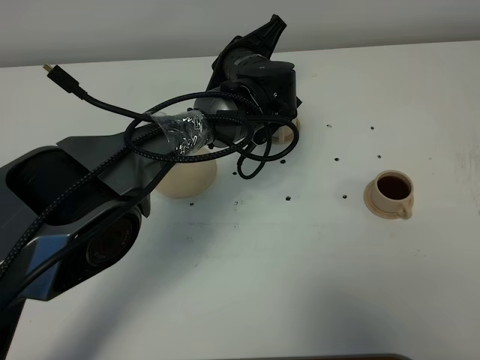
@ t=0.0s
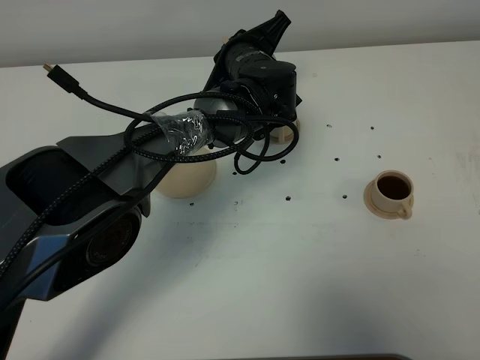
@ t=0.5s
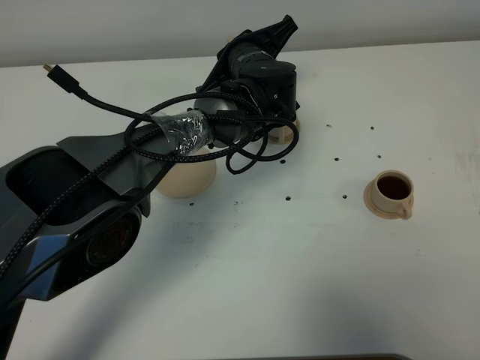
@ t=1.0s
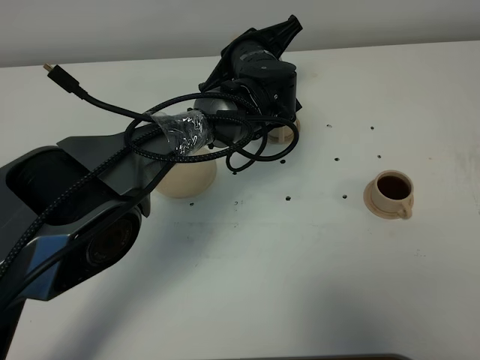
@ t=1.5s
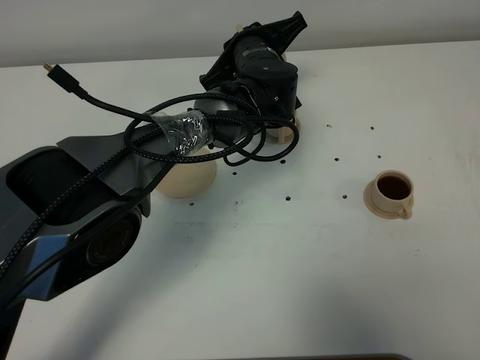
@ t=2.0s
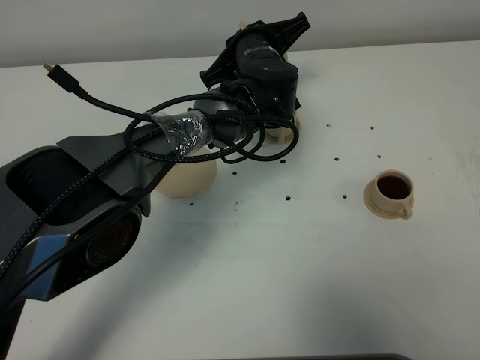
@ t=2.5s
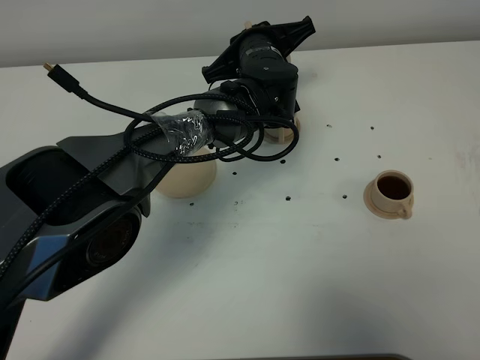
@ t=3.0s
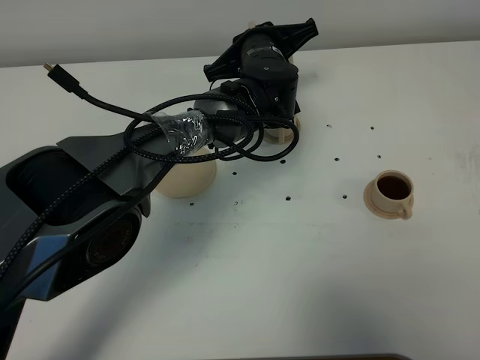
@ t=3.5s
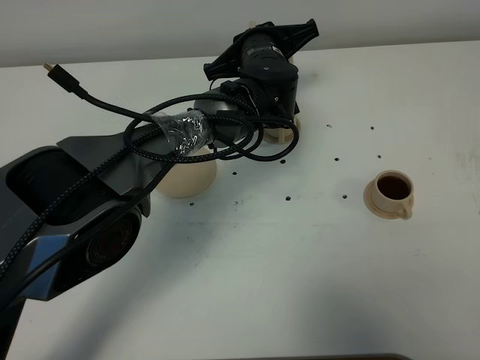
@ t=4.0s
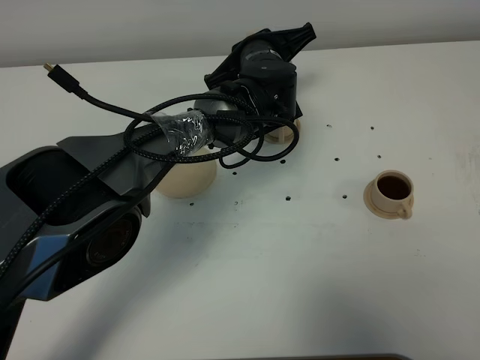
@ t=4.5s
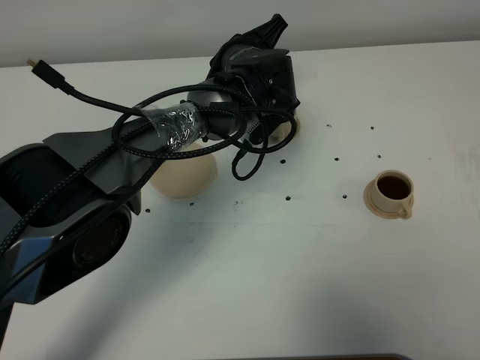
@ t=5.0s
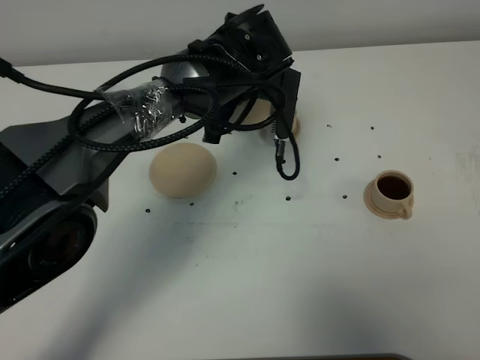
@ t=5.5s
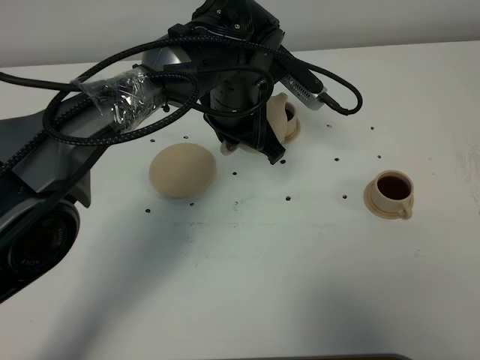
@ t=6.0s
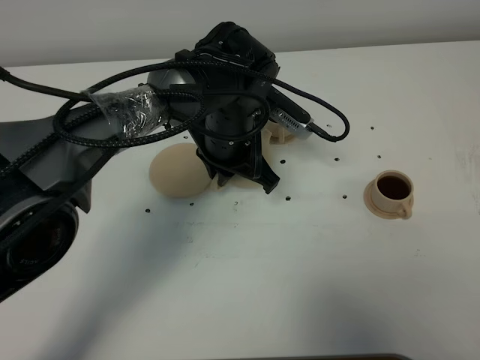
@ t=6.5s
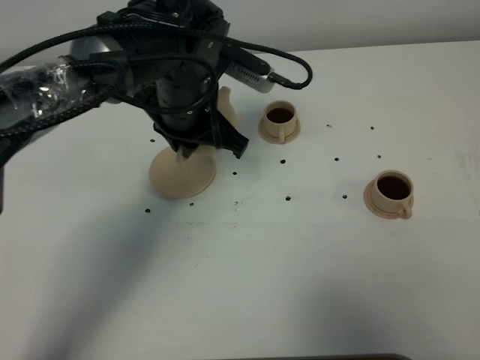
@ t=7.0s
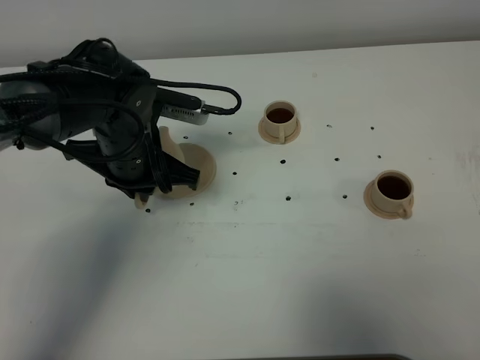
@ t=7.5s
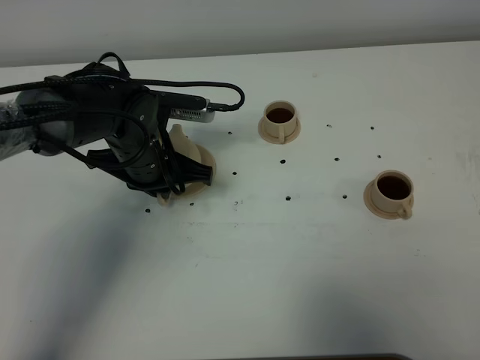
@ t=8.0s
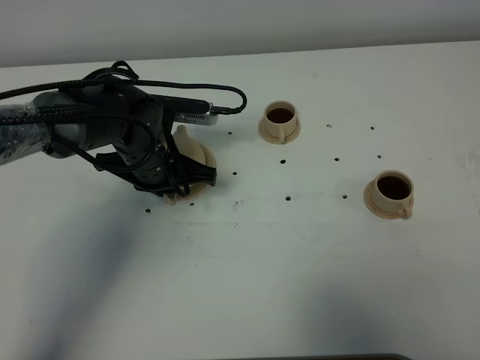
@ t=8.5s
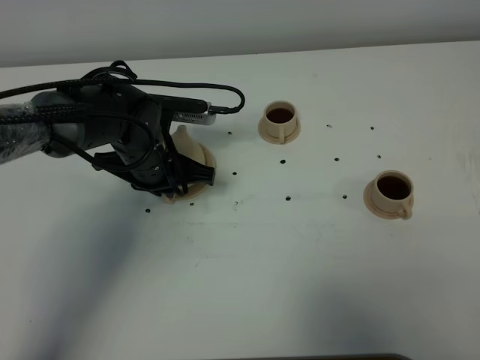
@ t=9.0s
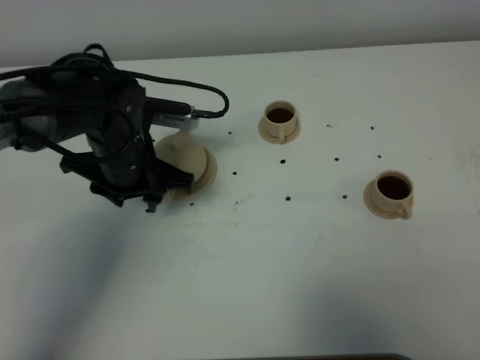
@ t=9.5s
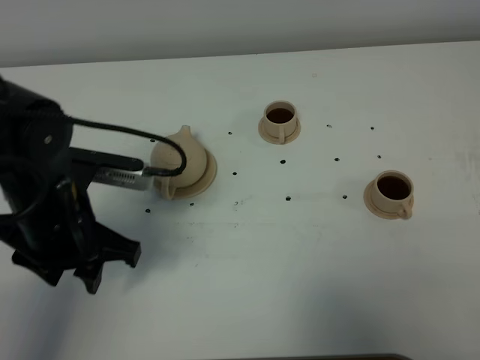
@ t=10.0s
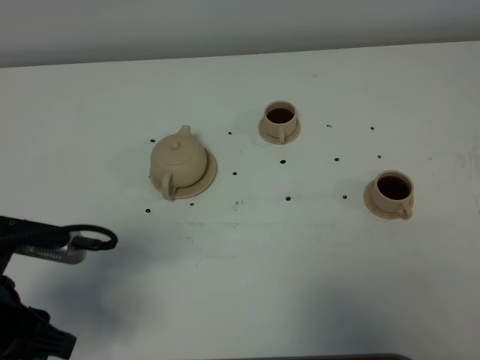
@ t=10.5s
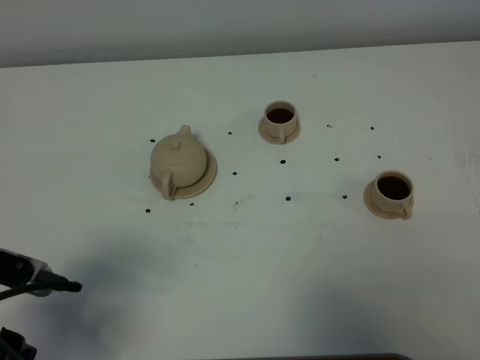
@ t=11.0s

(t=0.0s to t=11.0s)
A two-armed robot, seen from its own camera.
Task of the whole recording: grasp the brown teapot and pour the tea into the two brown teacups one by one, put the brown teapot back in its original place.
Step, t=0.0s - t=4.5s: Pour tea into the teacup with the left gripper.
t=0.0s - t=2.0s: The grippers stay close to where they were, moving slightly.
t=2.0s - t=3.5s: The grippers stay close to where they were, moving slightly.
t=3.5s - t=5.5s: The left gripper shifts by about 5 cm.
t=5.5s - t=7.5s: The left gripper heads to the left and backward, covering roughly 15 cm.
t=7.5s - t=9.0s: The left gripper changes place by roughly 5 cm.
t=9.0s - t=11.0s: The left gripper heads backward and to the left, covering about 30 cm, and opens its fingers.

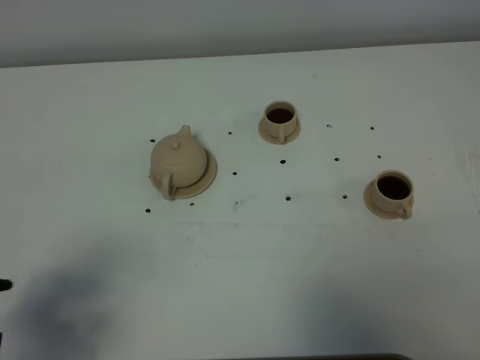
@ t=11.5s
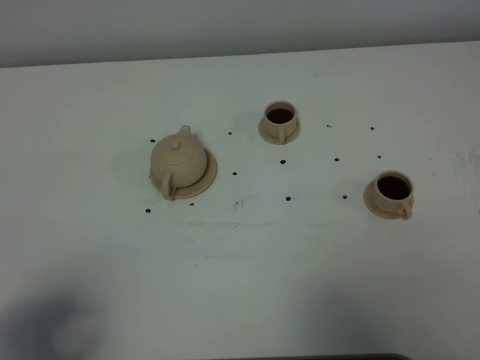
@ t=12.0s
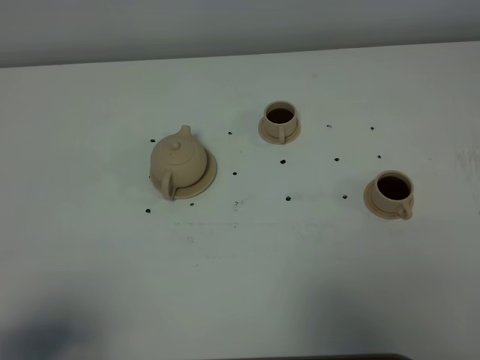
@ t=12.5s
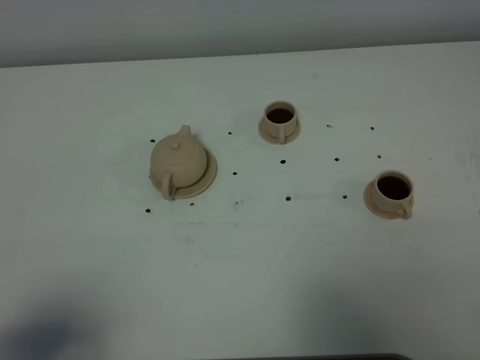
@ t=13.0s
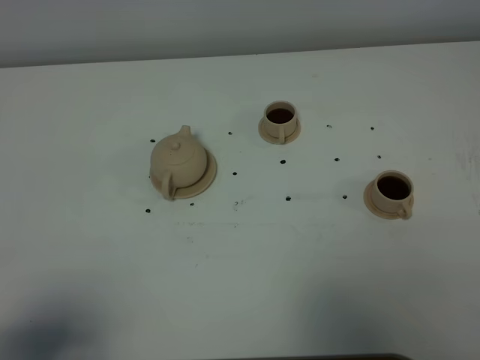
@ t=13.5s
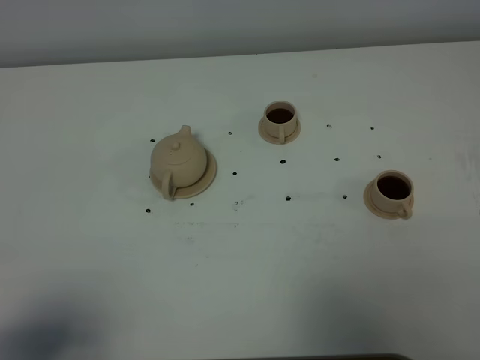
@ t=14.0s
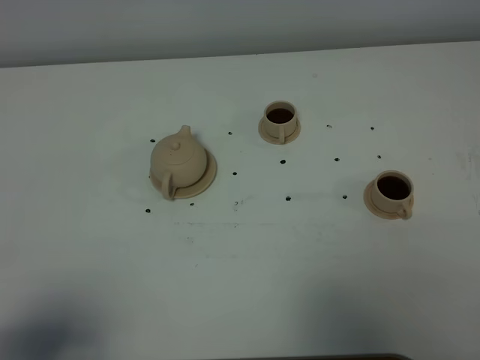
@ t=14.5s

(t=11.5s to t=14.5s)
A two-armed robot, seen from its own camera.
Task of the whole recording: grasp the brown teapot and pour the tea into the two brown teacups one by one, put the brown teapot back in its original place.
t=11.5s - t=13.0s: The left gripper goes roughly 5 cm backward.
t=13.0s - t=14.5s: Neither gripper changes place.

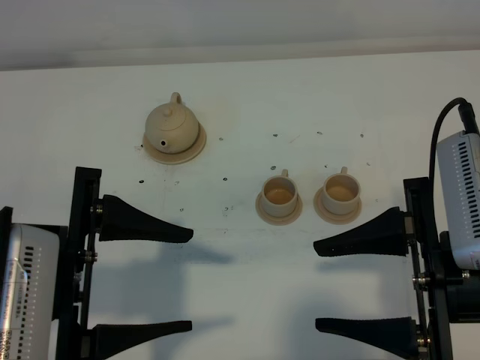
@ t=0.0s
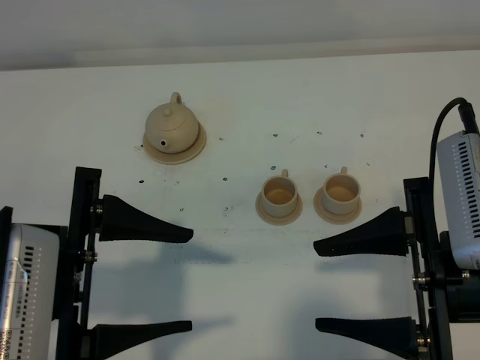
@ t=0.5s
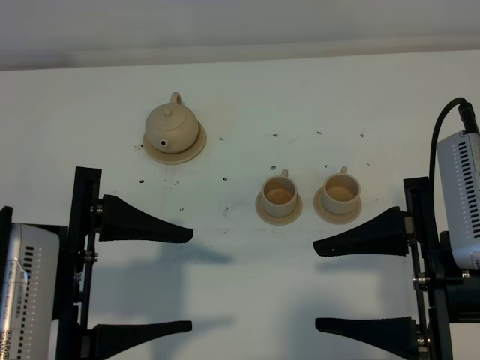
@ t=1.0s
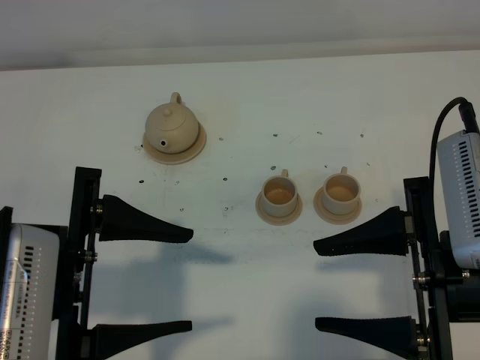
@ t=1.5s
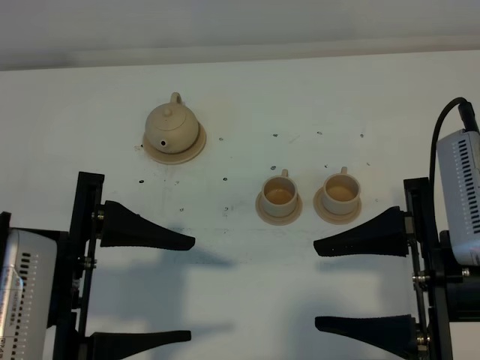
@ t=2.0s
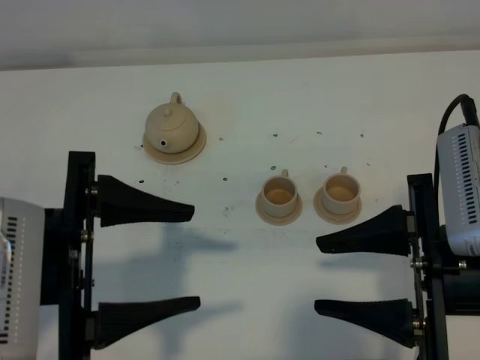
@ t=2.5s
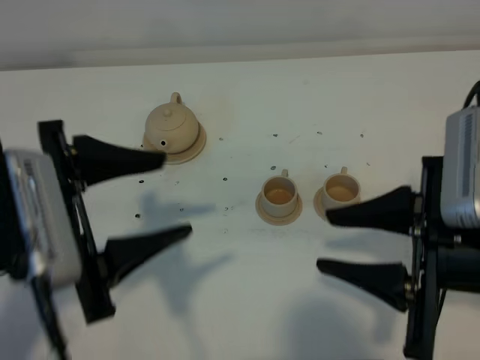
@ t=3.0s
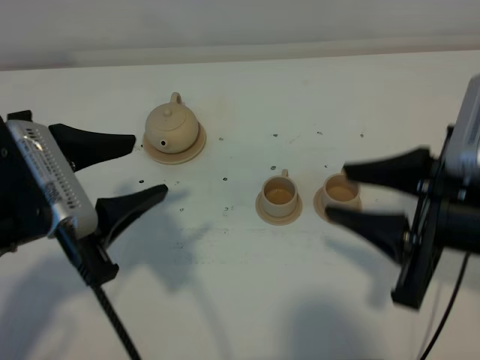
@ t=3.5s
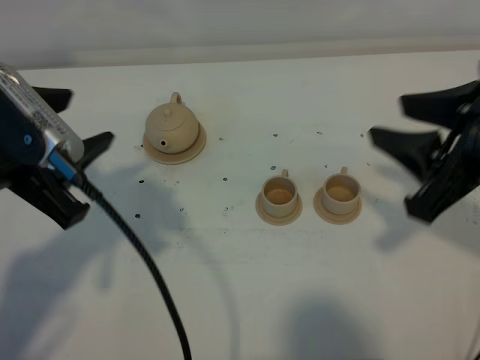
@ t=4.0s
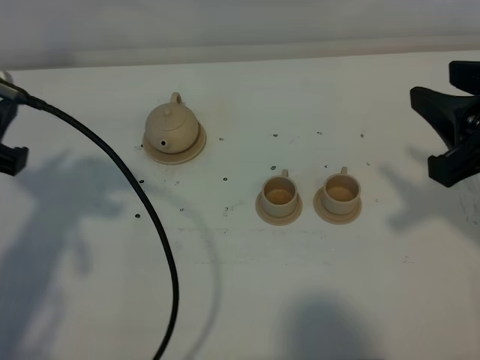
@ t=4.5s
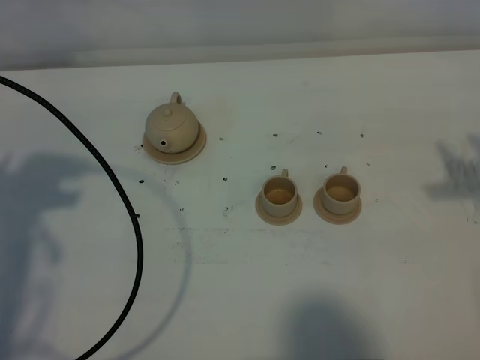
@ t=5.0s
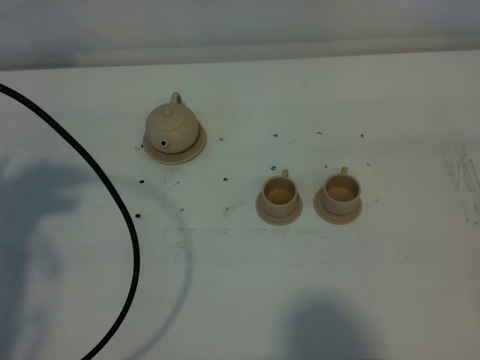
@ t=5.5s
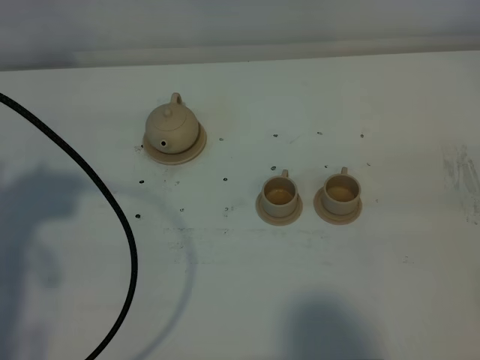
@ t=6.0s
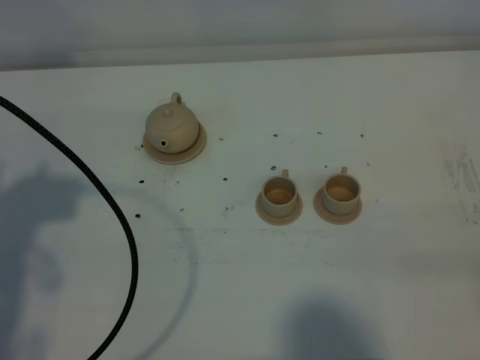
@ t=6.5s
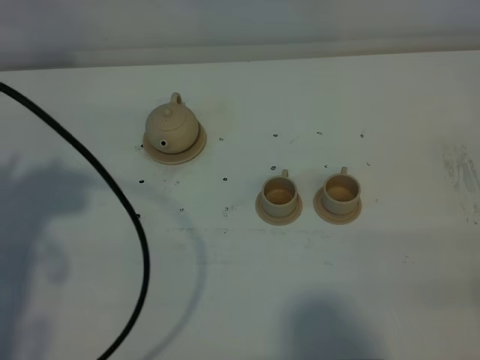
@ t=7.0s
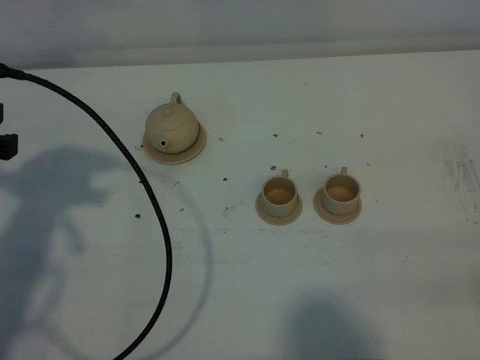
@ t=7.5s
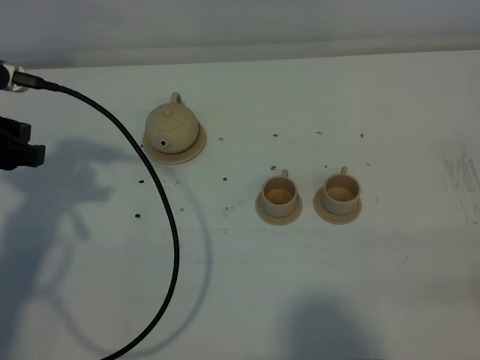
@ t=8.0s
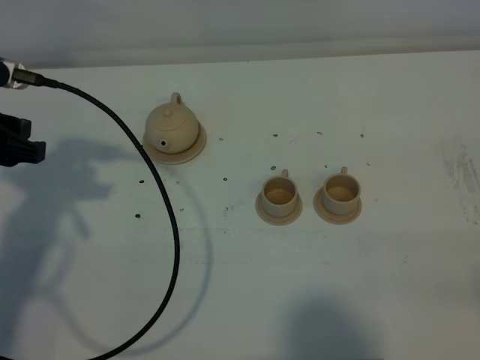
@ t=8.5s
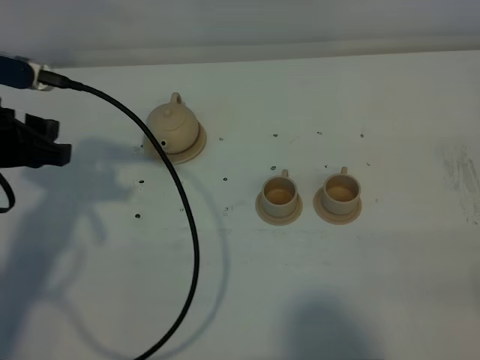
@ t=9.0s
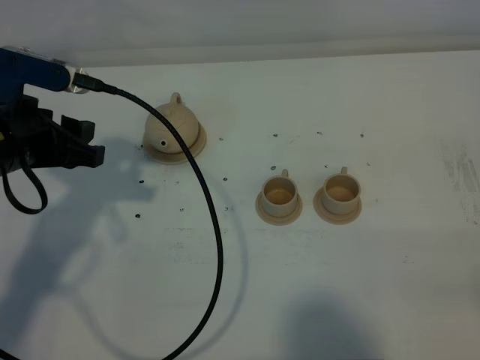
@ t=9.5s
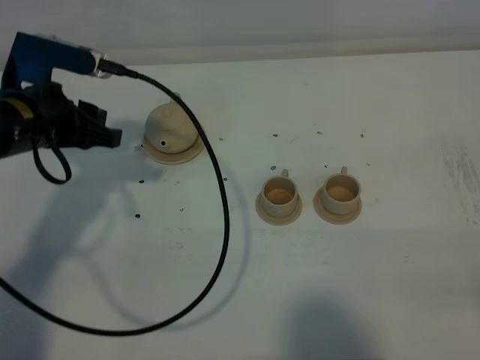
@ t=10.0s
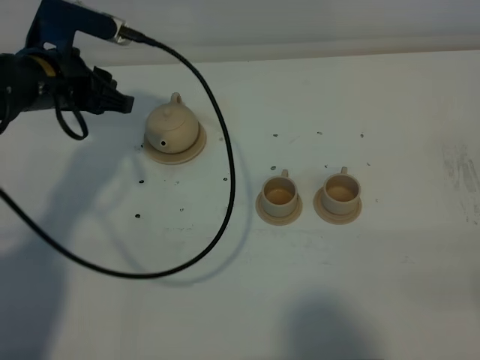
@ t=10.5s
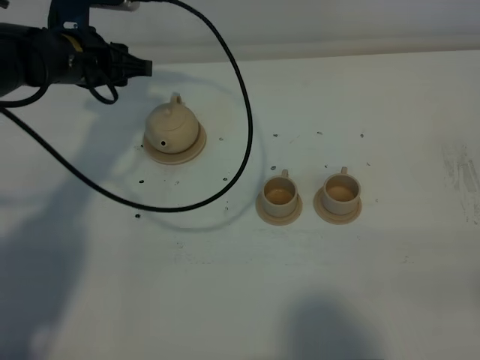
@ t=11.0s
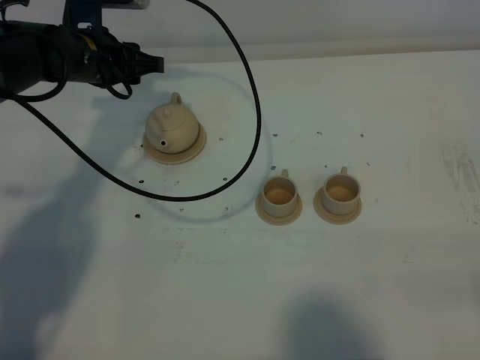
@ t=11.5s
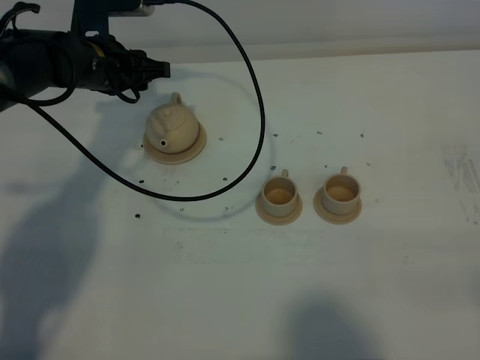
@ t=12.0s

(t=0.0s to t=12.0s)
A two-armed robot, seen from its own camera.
Task of the whole recording: grasp the brown teapot and pour the tea into the two brown teacups one by one, put the brown teapot back in its original place.
t=0.0s - t=2.0s: Both grippers stay put.
t=2.0s - t=4.0s: Both grippers move forward, approximately 5 cm.
t=4.0s - t=6.0s: The right gripper travels backward and to the right by some 20 cm, while the left gripper shifts some 10 cm to the left.
t=6.0s - t=8.0s: The left gripper goes roughly 15 cm forward and downward. Meanwhile the right gripper moves downward, roughly 10 cm.
t=8.0s - t=10.0s: The left gripper goes some 10 cm to the right and forward.
t=10.0s - t=12.0s: The left gripper shifts about 15 cm forward.
